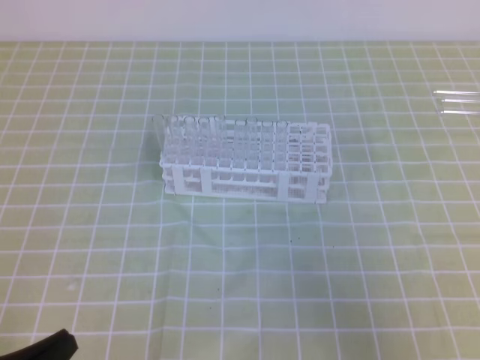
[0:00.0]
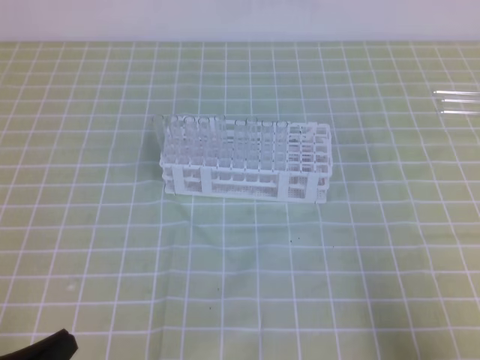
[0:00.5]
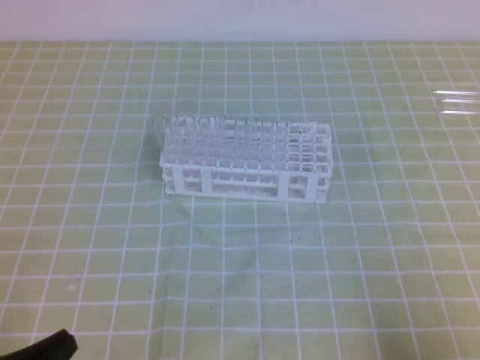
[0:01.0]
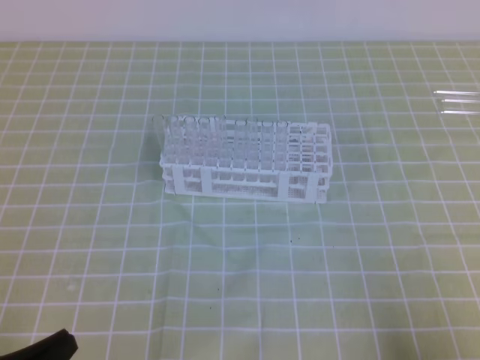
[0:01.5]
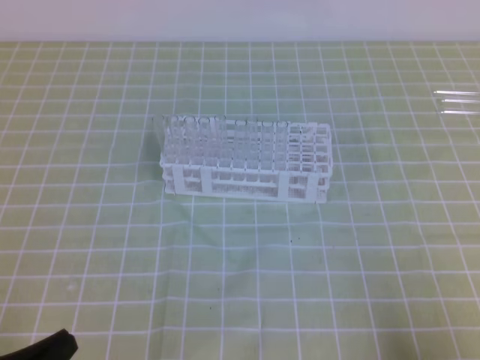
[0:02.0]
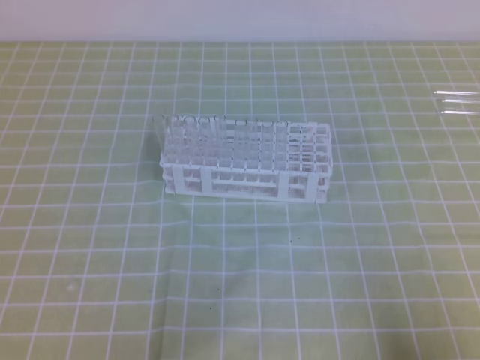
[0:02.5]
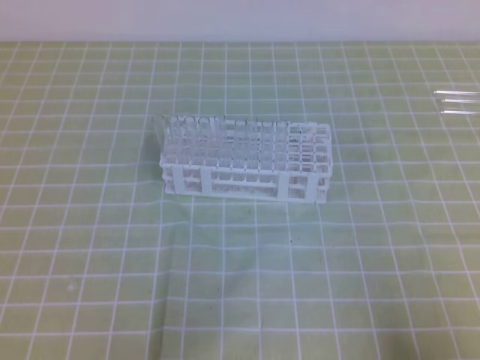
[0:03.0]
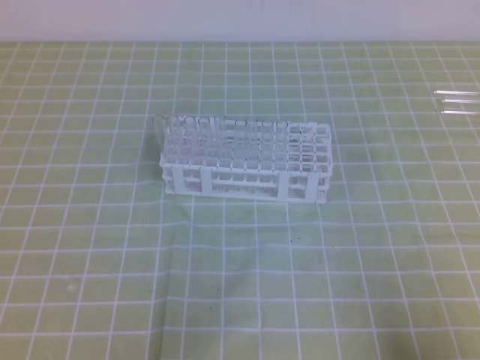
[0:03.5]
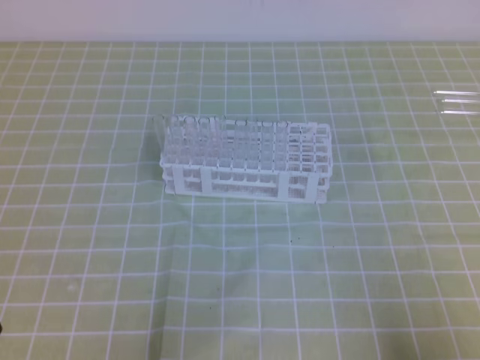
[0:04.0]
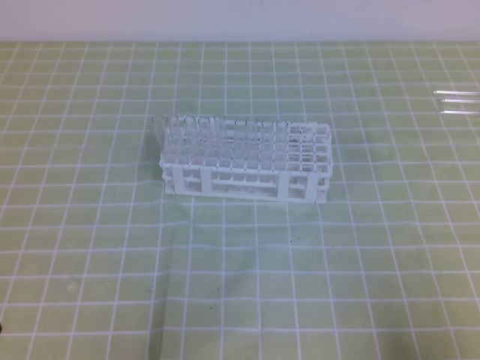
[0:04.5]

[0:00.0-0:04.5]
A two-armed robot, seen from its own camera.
0.0 to 2.0 s: The right gripper heads downward and backward, covering about 10 cm.

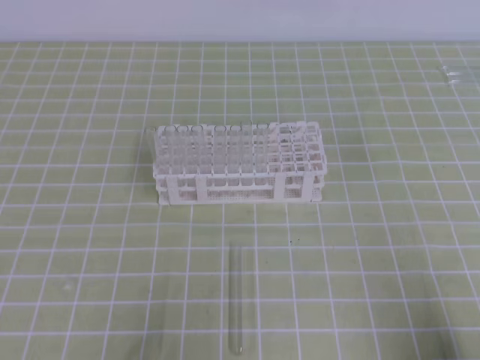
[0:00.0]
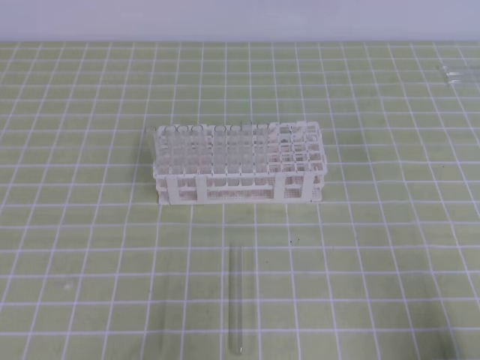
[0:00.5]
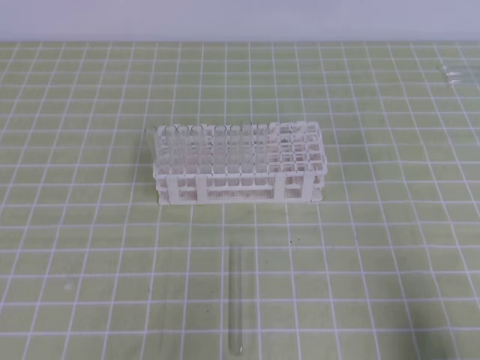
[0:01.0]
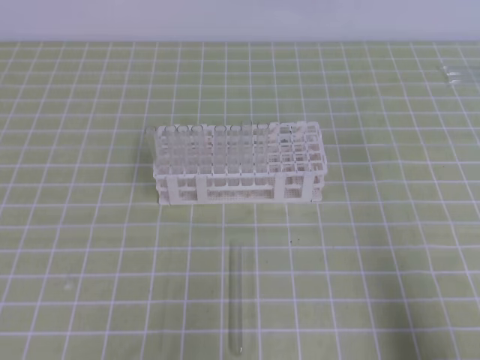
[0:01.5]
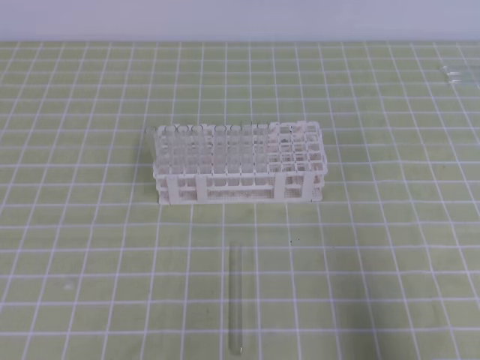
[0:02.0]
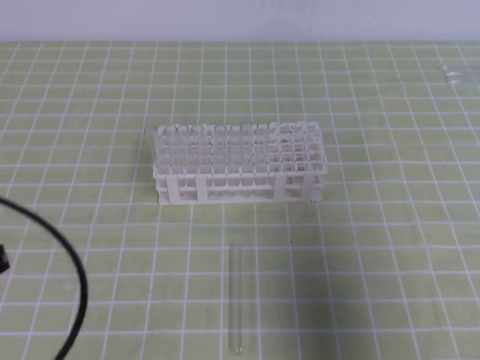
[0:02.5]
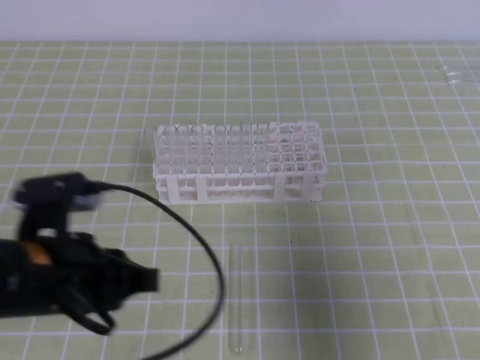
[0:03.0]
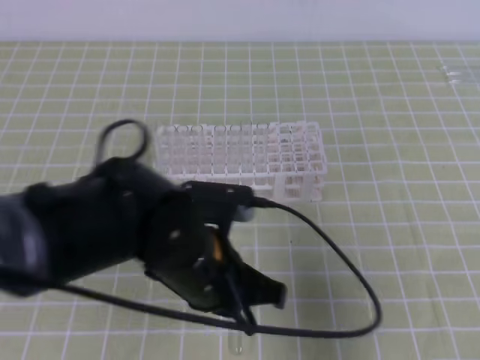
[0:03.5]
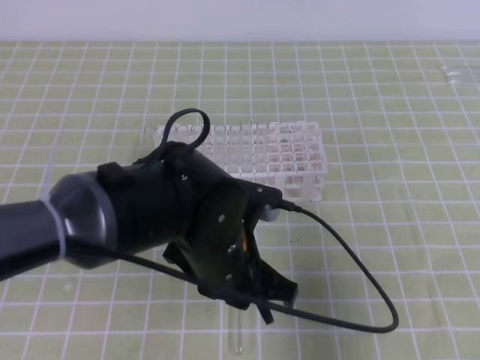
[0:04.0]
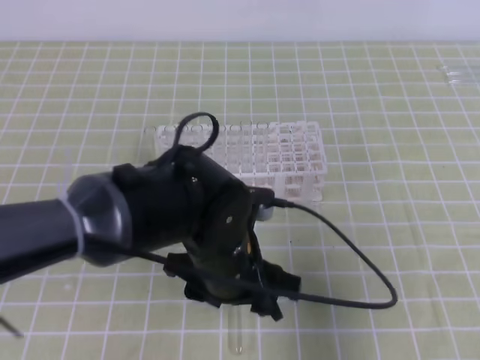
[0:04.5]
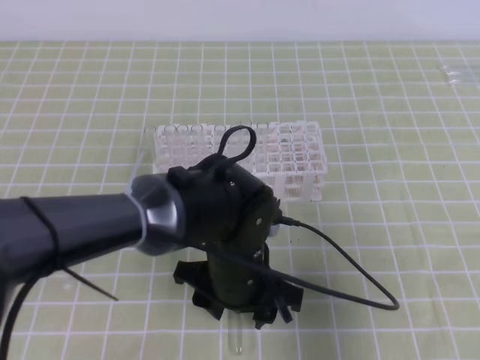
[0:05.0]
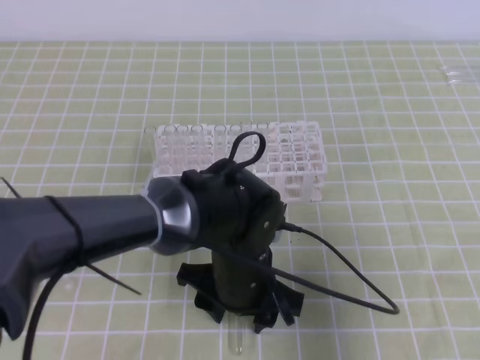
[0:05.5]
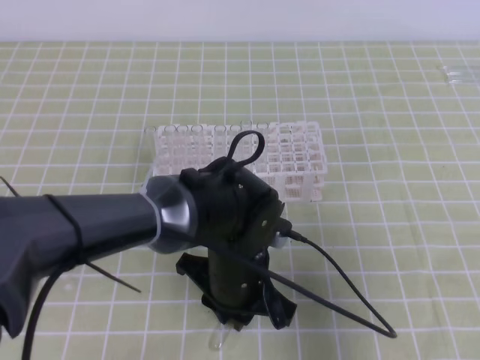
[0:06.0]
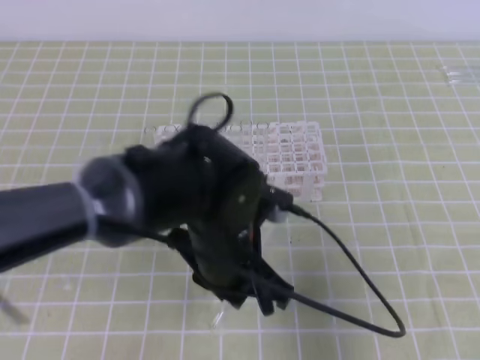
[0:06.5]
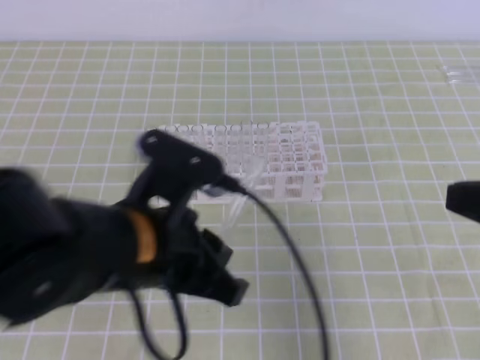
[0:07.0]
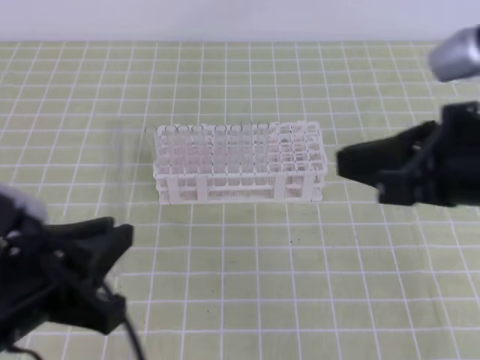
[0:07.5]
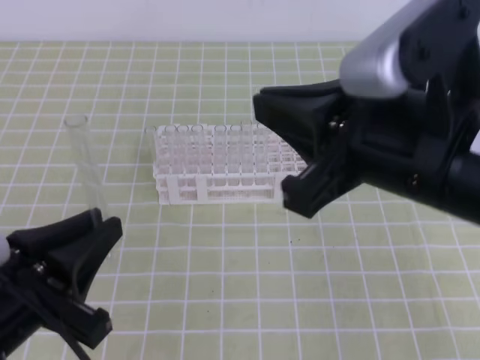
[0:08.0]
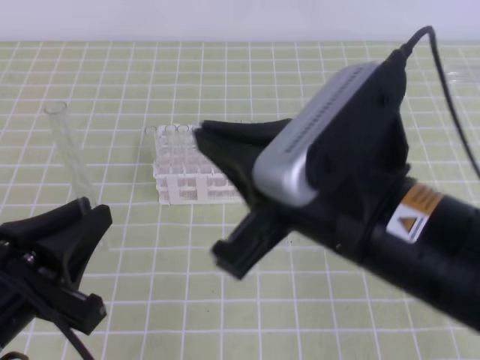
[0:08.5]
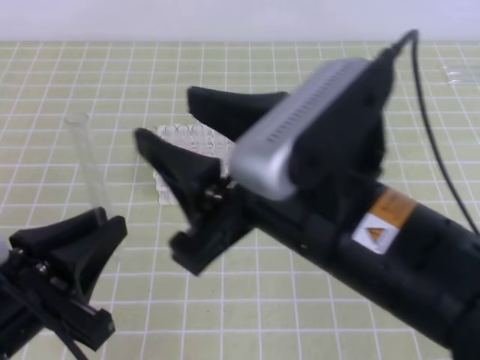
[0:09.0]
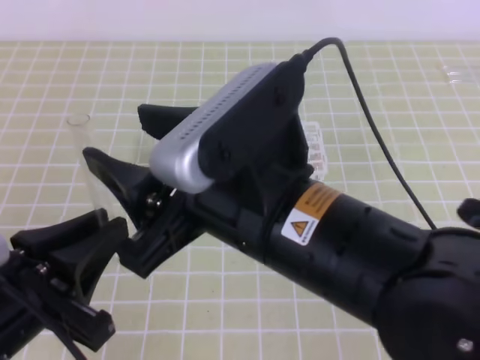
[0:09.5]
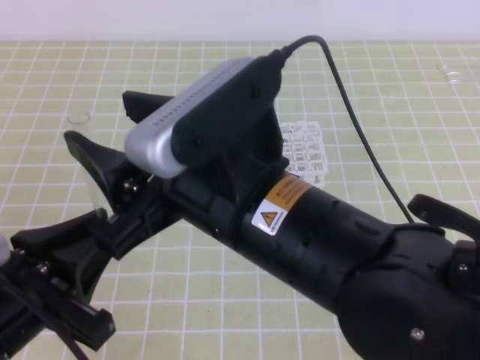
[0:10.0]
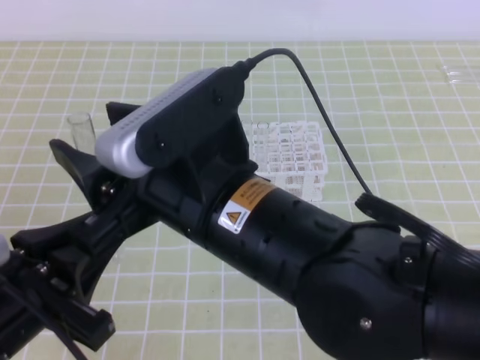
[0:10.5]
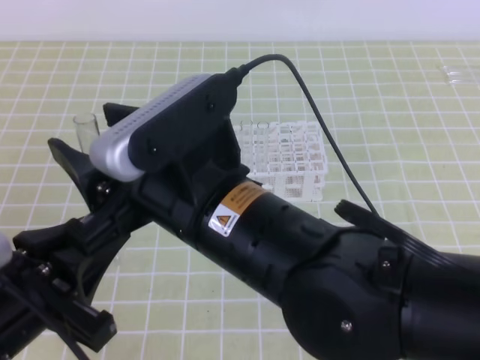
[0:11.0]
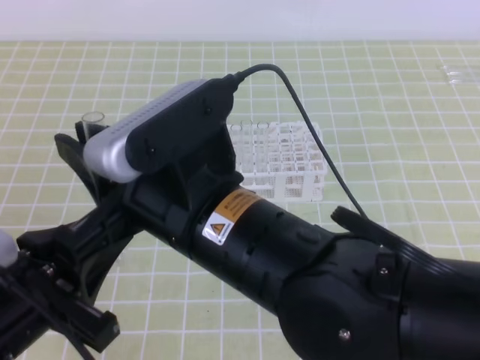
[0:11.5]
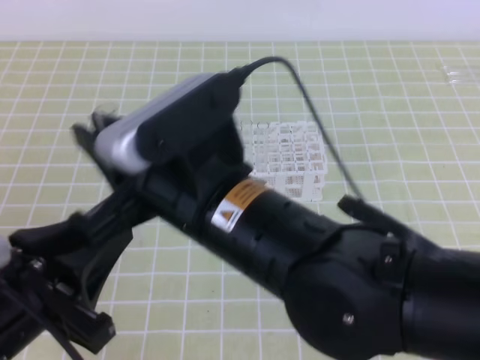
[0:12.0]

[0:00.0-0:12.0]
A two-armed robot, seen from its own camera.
0.0 to 2.0 s: The right gripper is displaced upward by approximately 10 cm.
2.0 to 4.0 s: The left gripper heads to the right and forward, covering approximately 30 cm, and opens its fingers. Meanwhile the right gripper heads forward, covering approximately 5 cm.
4.0 to 6.0 s: The left gripper travels downward by approximately 5 cm, and opens and closes again.
6.0 to 8.0 s: The right gripper shifts approximately 15 cm to the left and upward, while the left gripper heads to the left, backward and upward, covering approximately 25 cm.
8.0 to 10.0 s: The right gripper moves to the left, about 10 cm, and opens.
10.0 to 12.0 s: The right gripper closes up; the left gripper opens up.

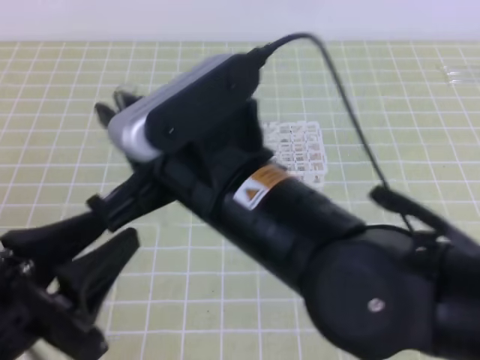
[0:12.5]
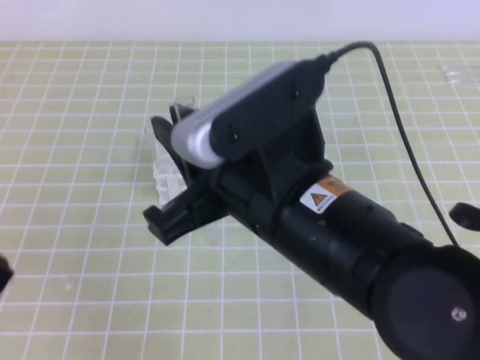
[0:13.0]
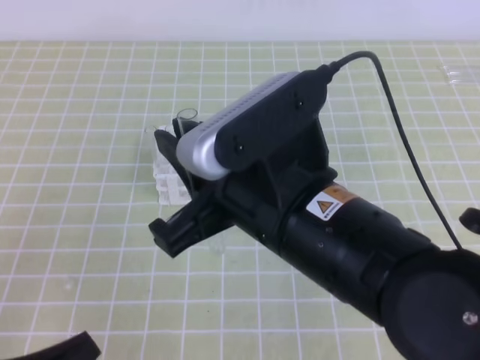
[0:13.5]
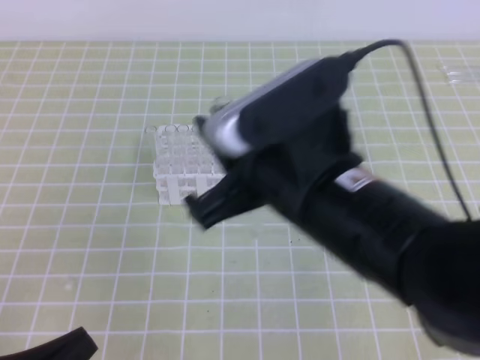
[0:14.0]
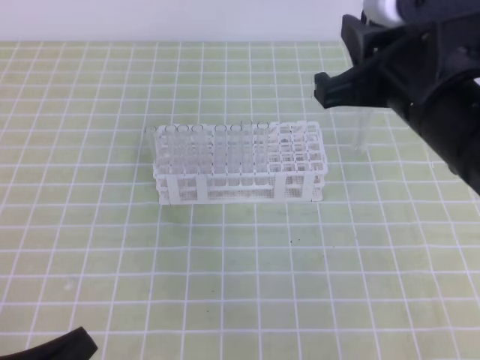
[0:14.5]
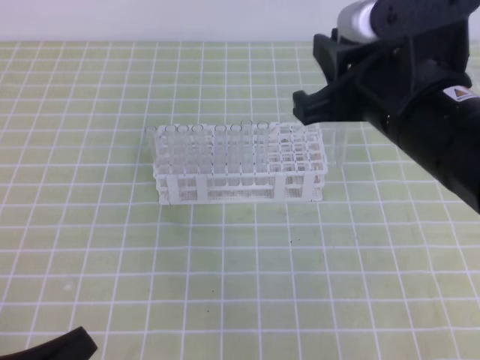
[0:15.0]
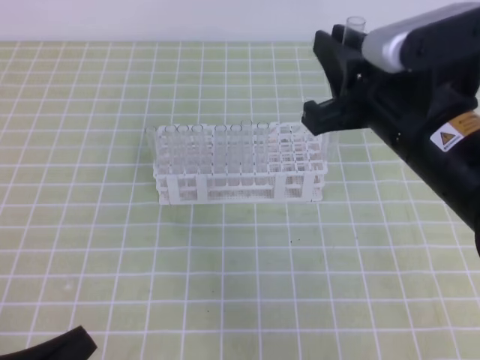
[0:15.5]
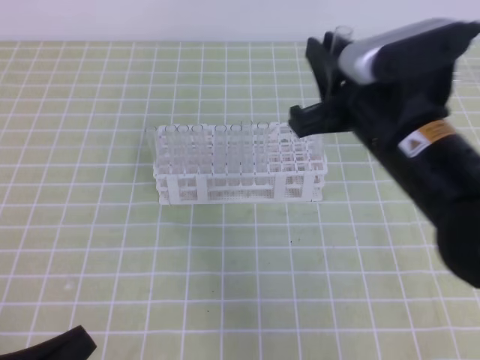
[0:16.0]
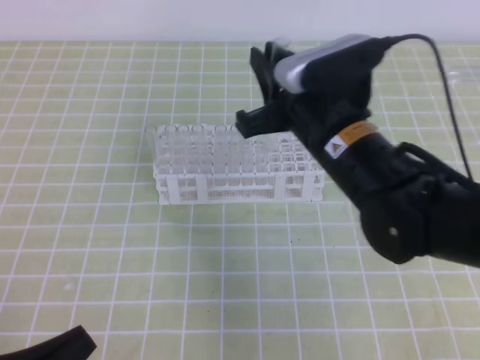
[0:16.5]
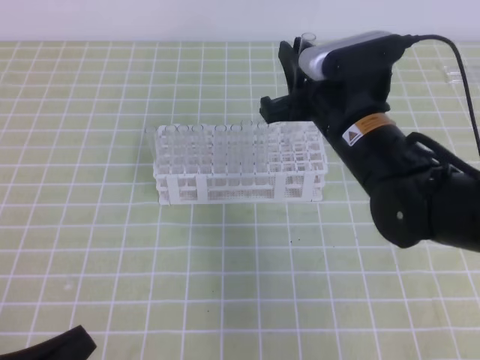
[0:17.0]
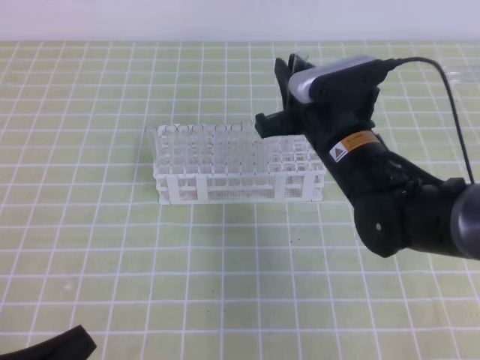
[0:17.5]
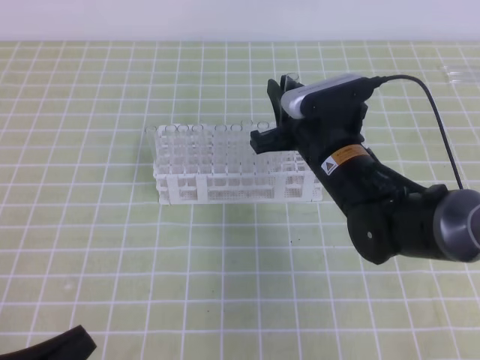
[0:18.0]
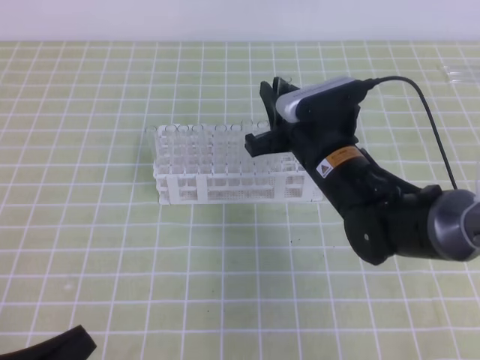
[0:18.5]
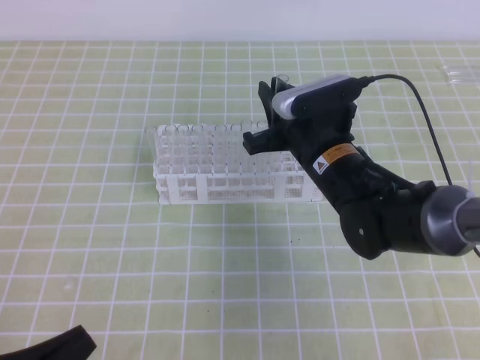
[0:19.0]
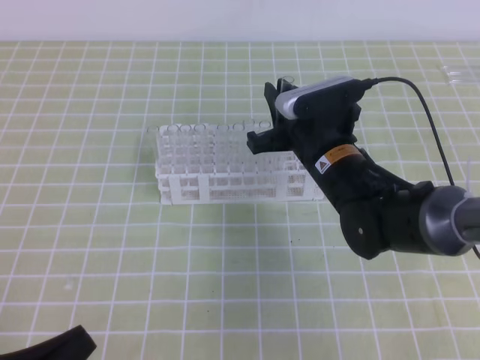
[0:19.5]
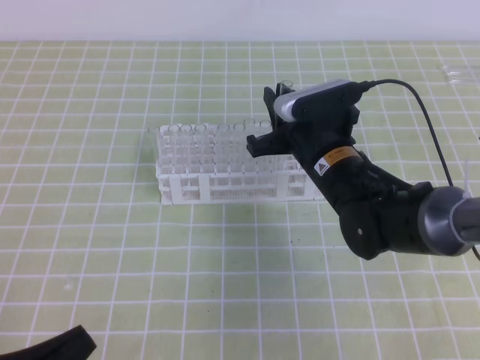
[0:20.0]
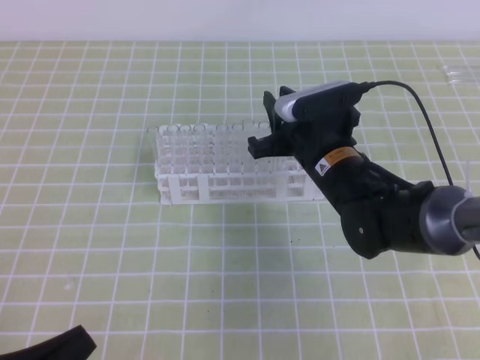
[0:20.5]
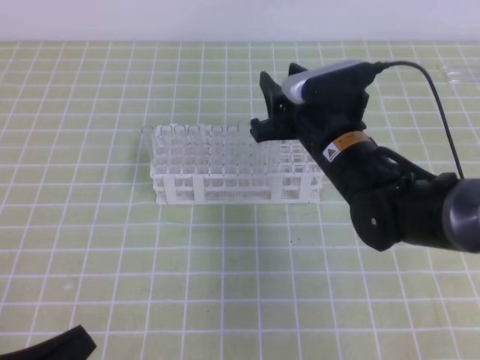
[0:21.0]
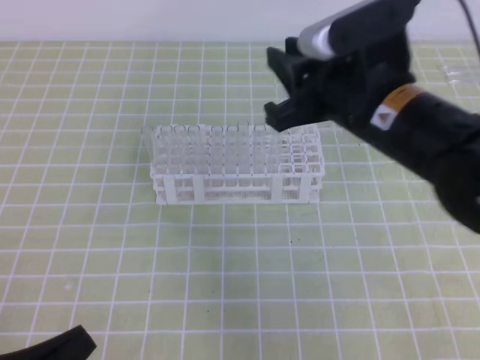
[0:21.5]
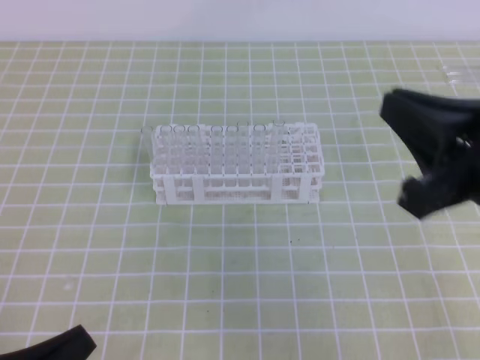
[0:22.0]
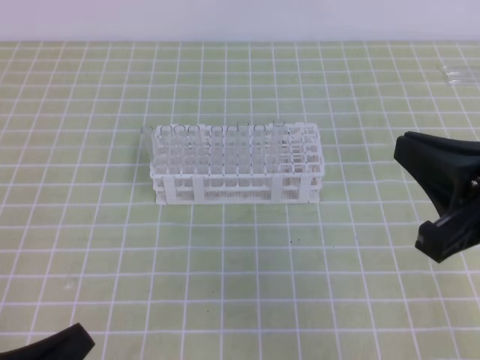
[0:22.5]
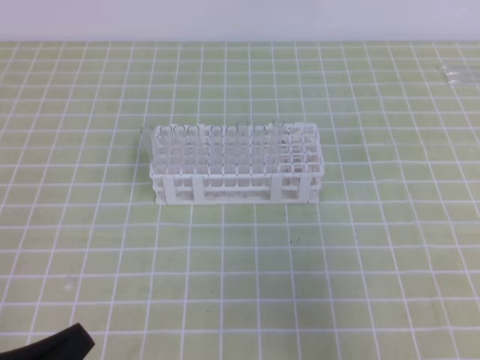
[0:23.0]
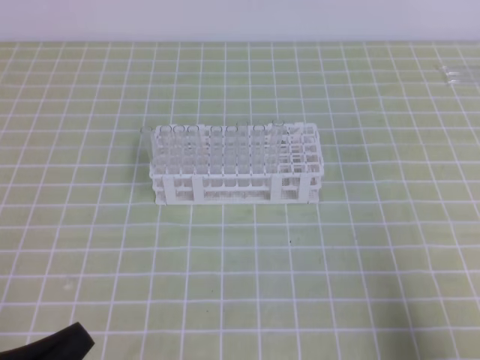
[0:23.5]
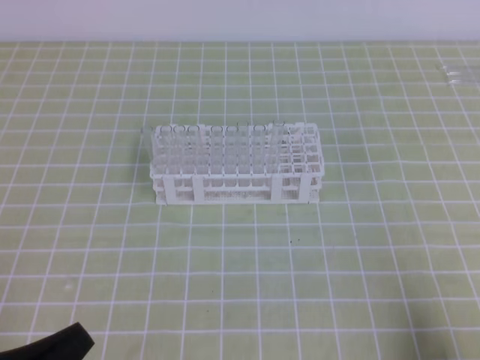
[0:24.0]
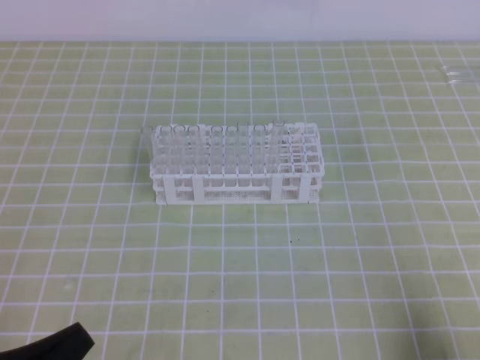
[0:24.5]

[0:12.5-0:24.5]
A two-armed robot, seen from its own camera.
12.5 to 14.5 s: The left gripper shifts about 10 cm downward, and closes, while the right gripper heads to the right and forward, covering about 15 cm.
14.5 to 16.5 s: The right gripper heads downward and forward, covering about 10 cm.
16.5 to 18.5 s: The right gripper is displaced downward by about 5 cm.
18.5 to 20.5 s: There are only small adjustments of the grippers.
20.5 to 22.5 s: The right gripper is displaced backward, upward and to the right by about 25 cm, and closes up.
22.5 to 24.5 s: The right gripper is displaced downward, to the right and backward by approximately 20 cm.
